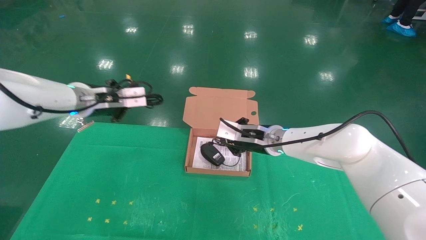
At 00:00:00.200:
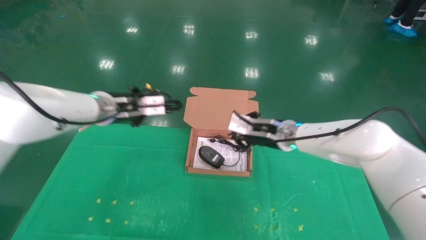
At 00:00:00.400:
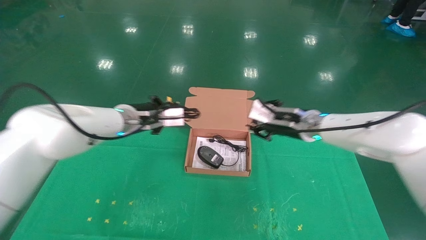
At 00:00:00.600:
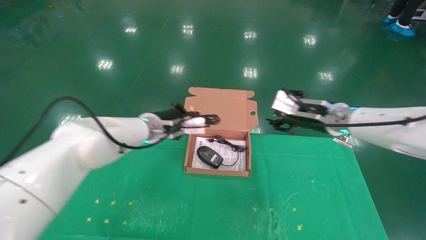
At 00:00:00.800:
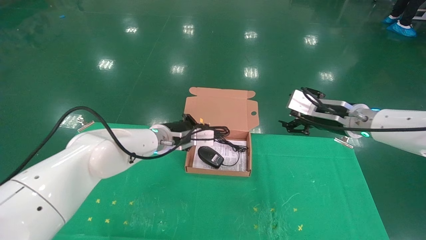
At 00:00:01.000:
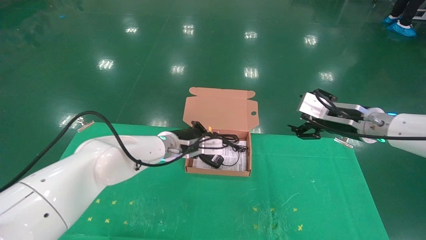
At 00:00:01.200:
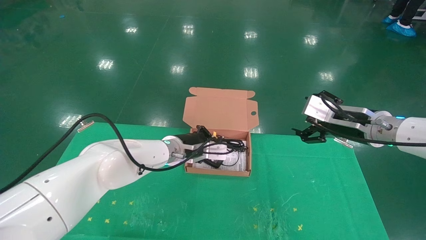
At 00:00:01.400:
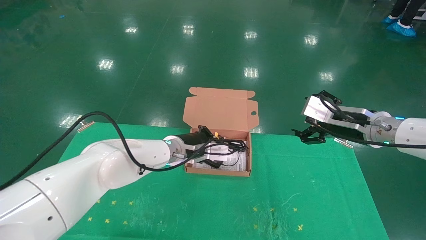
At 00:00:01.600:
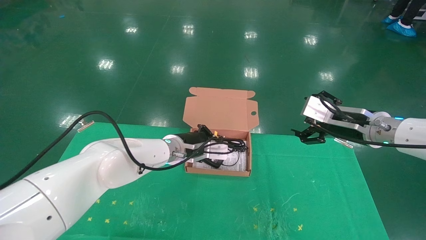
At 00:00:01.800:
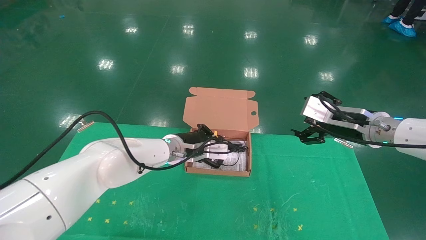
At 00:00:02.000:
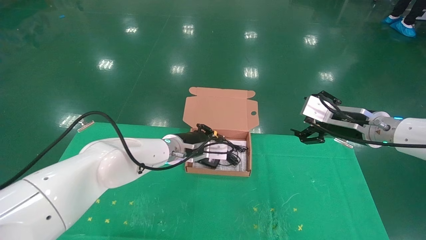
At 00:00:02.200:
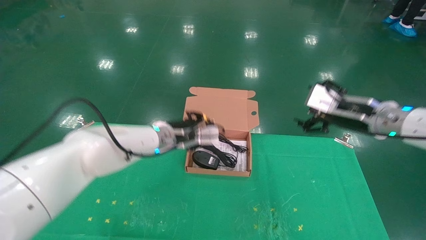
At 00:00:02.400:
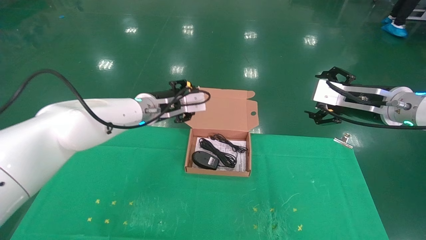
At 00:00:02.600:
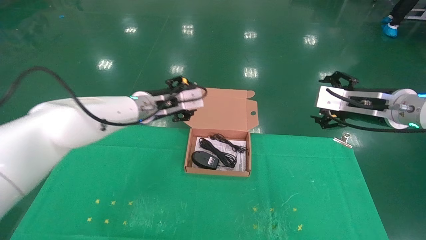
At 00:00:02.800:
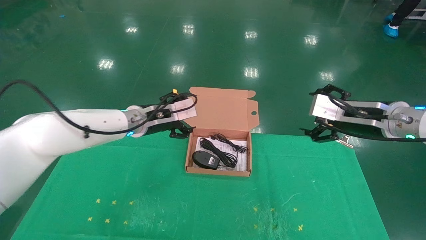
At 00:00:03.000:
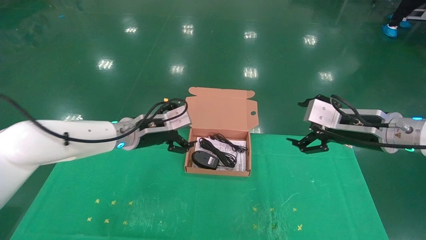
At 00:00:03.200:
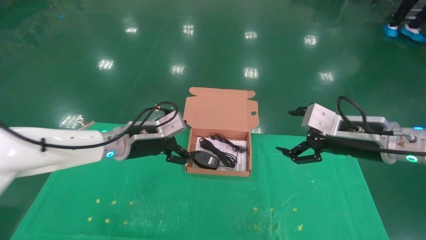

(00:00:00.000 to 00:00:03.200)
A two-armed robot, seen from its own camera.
Task of the whole recording: grasp data cable left put into box grasp mouse right put into box.
00:00:00.000 - 00:00:01.600: The left gripper shifts about 20 cm to the right and downward. Meanwhile the right gripper travels to the right and backward by about 20 cm, and opens.
00:00:01.600 - 00:00:03.200: The right gripper heads backward, covering roughly 5 cm; the left gripper heads to the left, covering approximately 10 cm, and opens its fingers.
